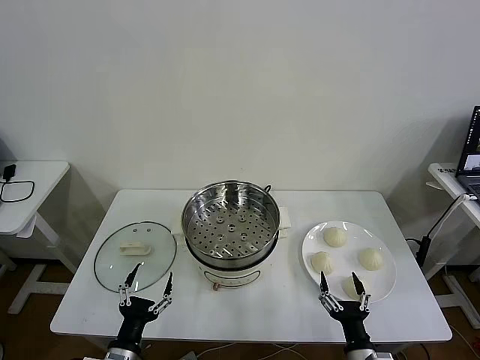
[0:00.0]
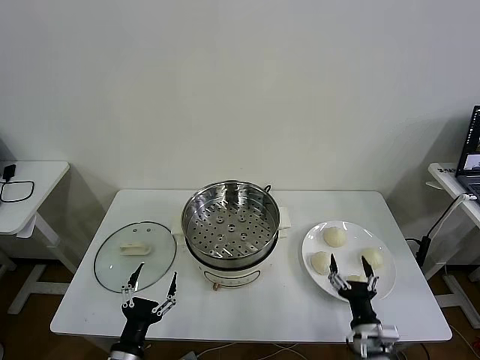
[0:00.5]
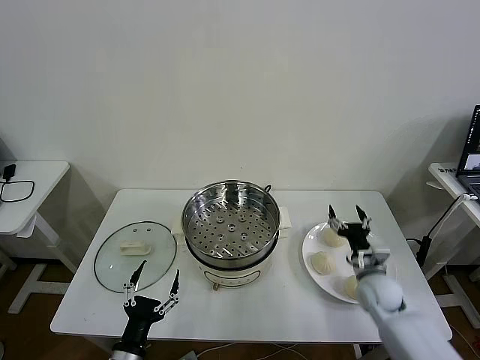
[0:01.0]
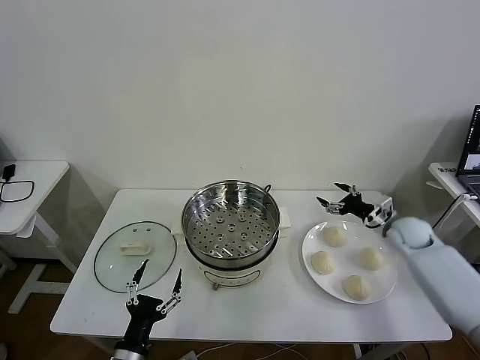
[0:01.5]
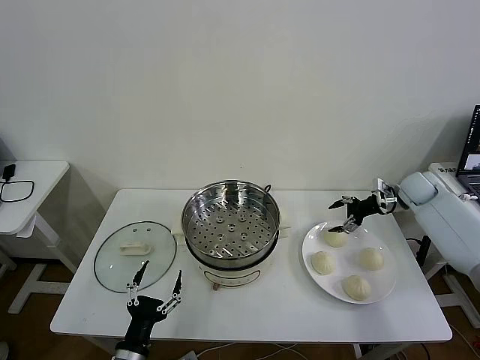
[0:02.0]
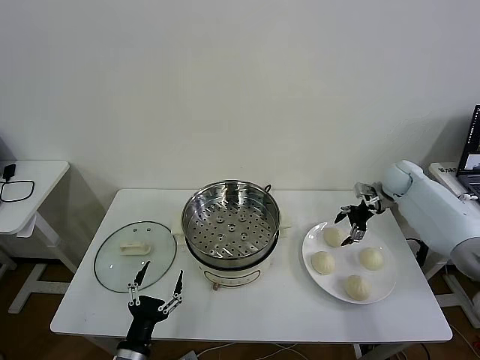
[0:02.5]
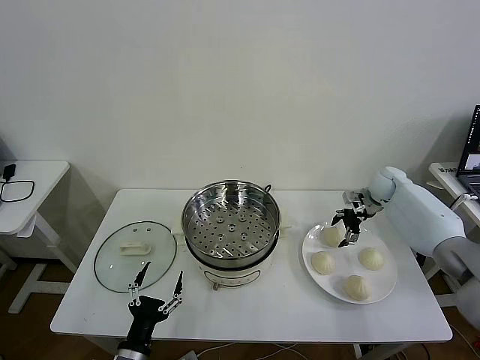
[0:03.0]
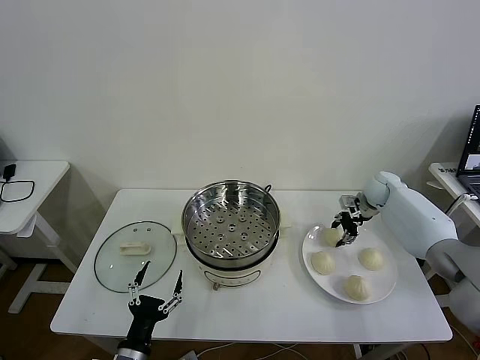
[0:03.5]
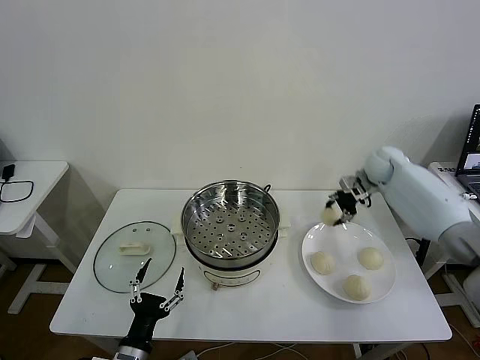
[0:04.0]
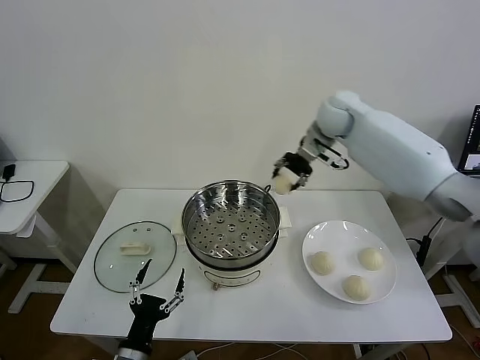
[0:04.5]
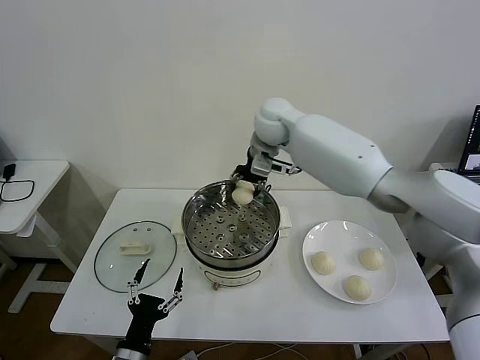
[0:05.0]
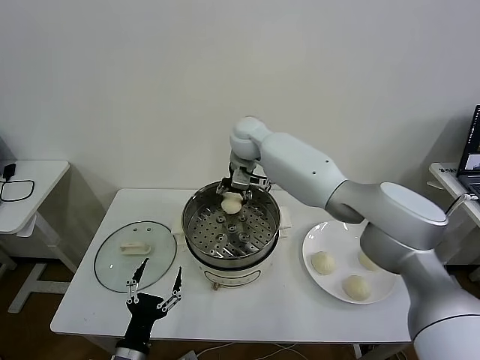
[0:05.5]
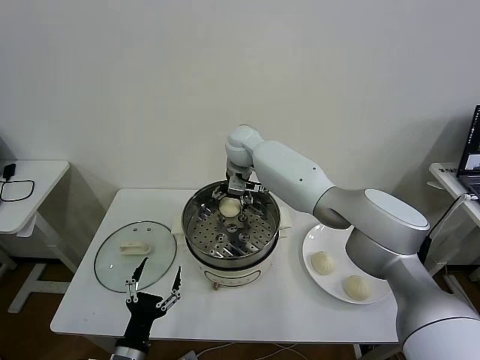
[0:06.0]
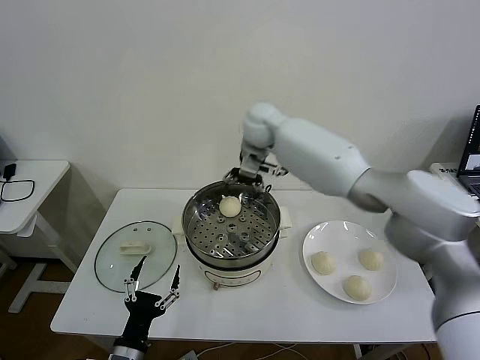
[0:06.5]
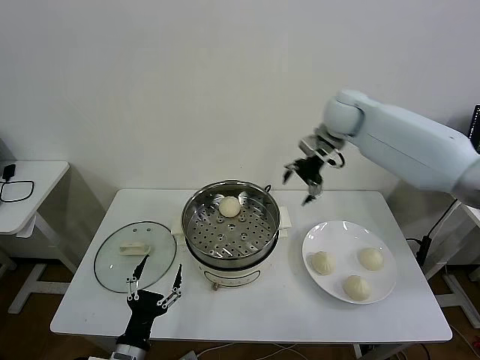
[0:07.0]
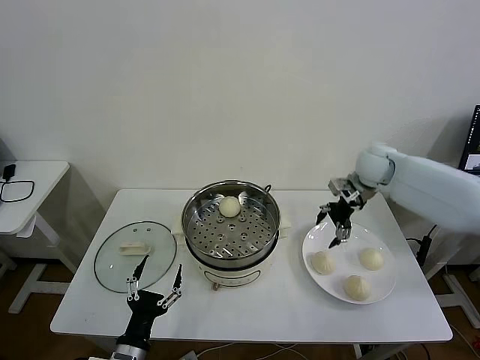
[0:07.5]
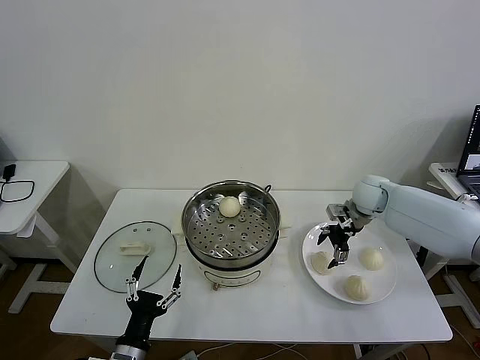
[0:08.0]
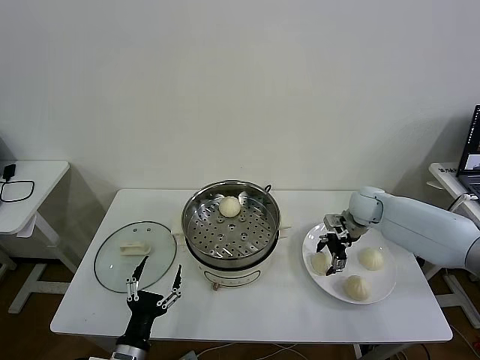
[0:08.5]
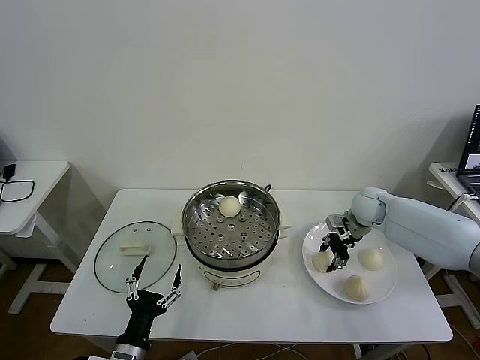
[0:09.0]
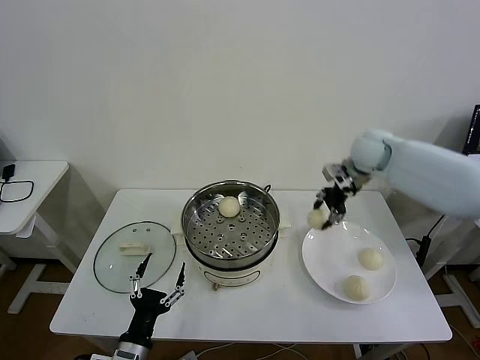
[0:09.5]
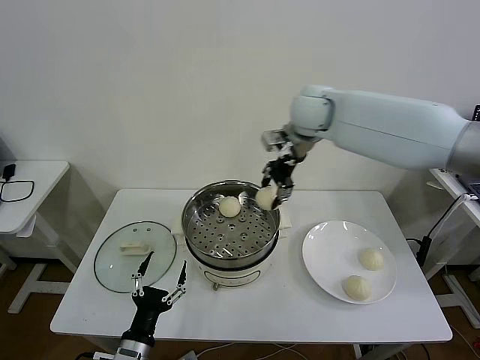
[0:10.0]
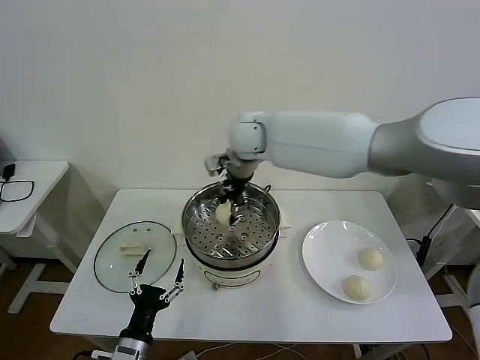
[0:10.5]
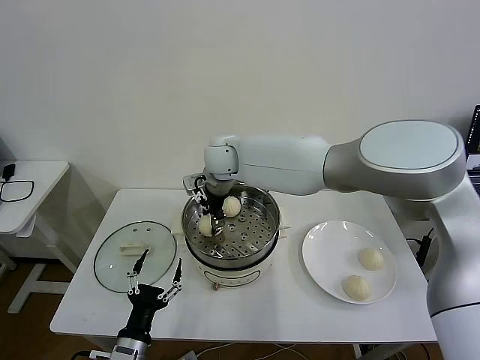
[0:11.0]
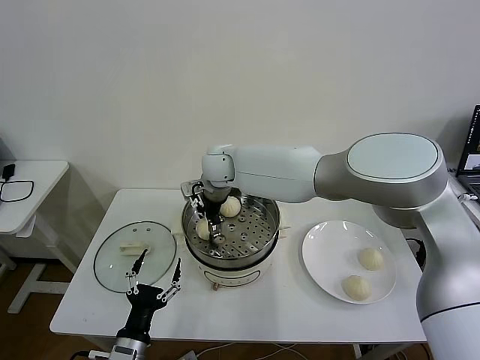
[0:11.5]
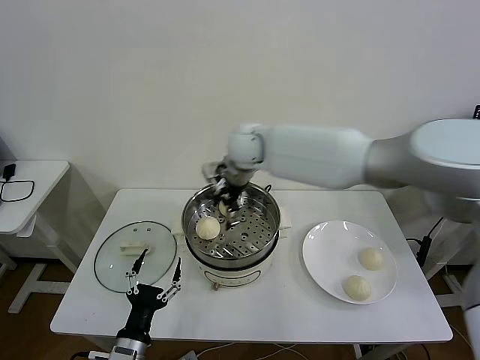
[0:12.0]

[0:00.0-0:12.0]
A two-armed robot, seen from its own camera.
Task of the whole recording: take steamed baozi put them in steamer then cover it.
Step, 0:00.0 to 0:03.5: Grasp the baozi in the plate with right gripper.
Step, 0:04.0 to 0:06.0: Place the baozi on the steamer with right gripper.
Step, 0:07.0 to 0:08.5: Grasp the baozi in the plate with right gripper.
Step, 0:09.0 to 0:11.5: Place the baozi on the steamer with right gripper.
0:02.0 to 0:04.0: The right gripper heads to the left and upward, covering about 10 cm, and closes up.
0:04.0 to 0:06.0: The right gripper moves to the left, approximately 35 cm, and opens its fingers.
0:06.0 to 0:08.0: The right gripper moves to the right, roughly 30 cm.
0:08.0 to 0:10.0: The right gripper shifts about 30 cm upward and to the left, and closes its fingers.
0:10.0 to 0:12.0: The right gripper heads to the left and downward, covering approximately 10 cm, and opens.

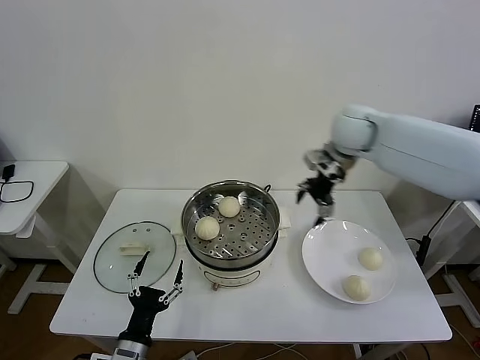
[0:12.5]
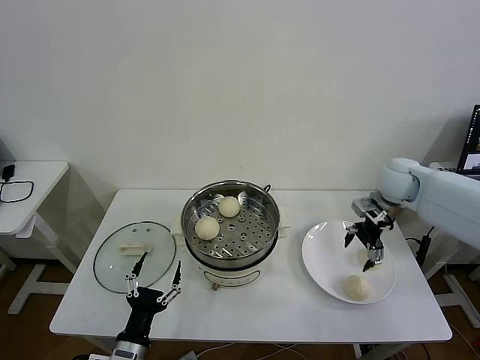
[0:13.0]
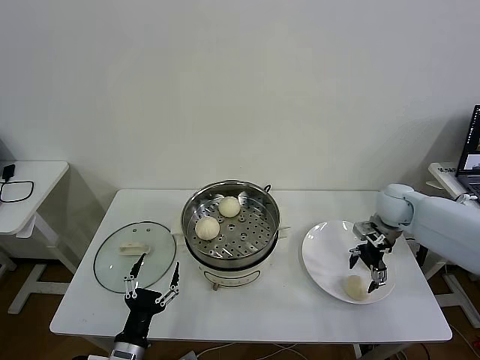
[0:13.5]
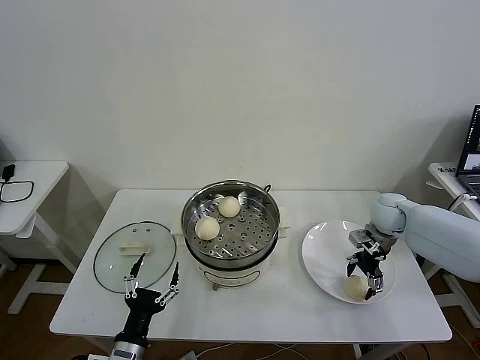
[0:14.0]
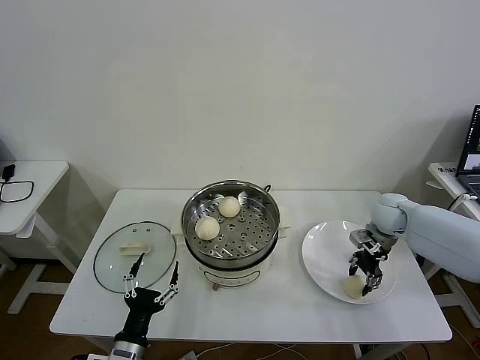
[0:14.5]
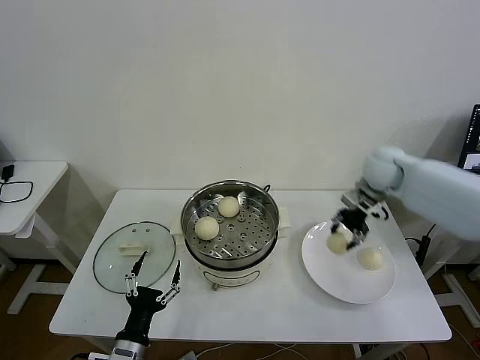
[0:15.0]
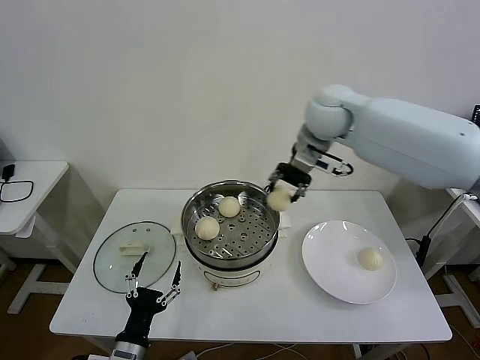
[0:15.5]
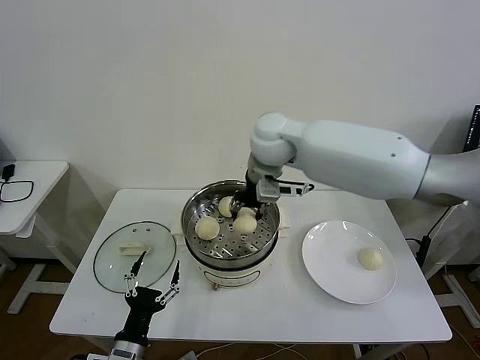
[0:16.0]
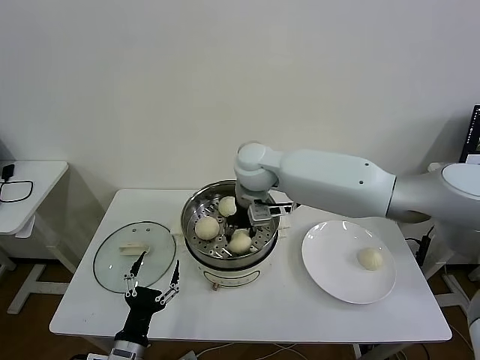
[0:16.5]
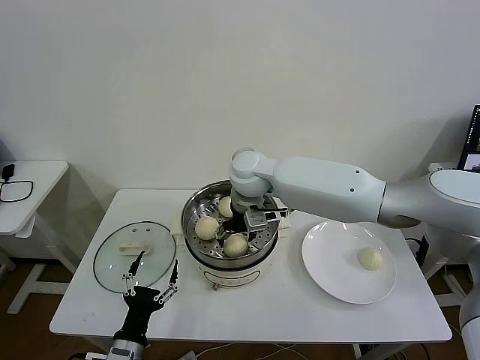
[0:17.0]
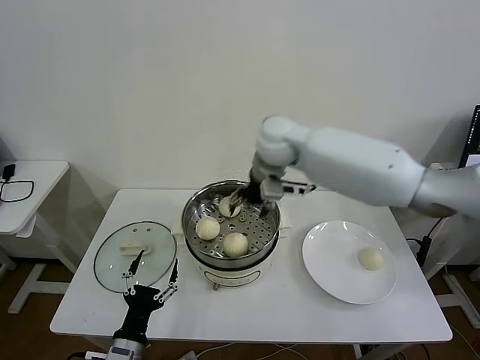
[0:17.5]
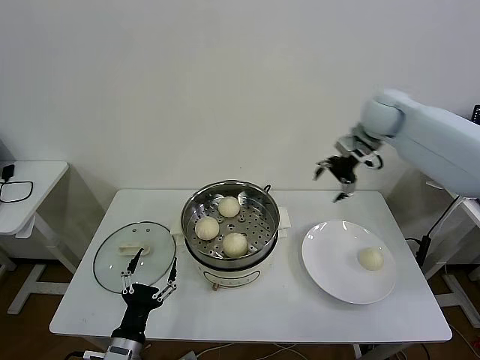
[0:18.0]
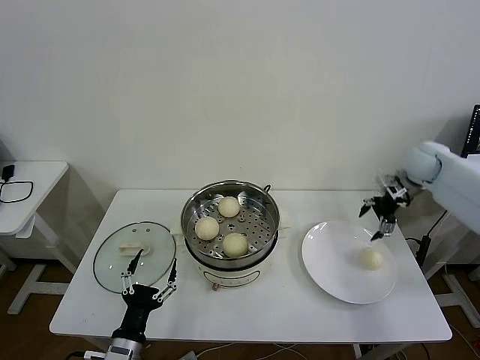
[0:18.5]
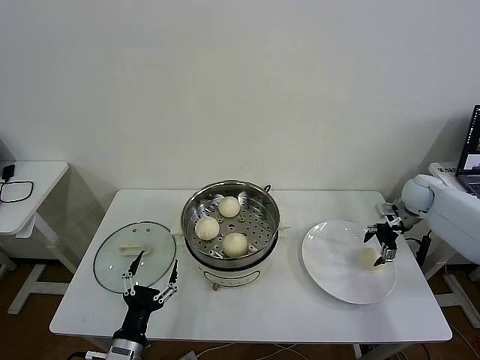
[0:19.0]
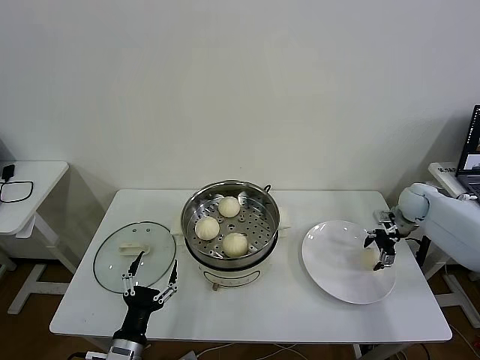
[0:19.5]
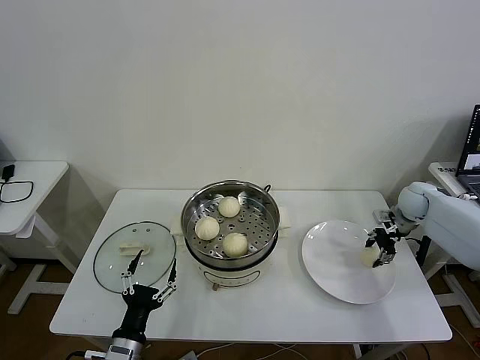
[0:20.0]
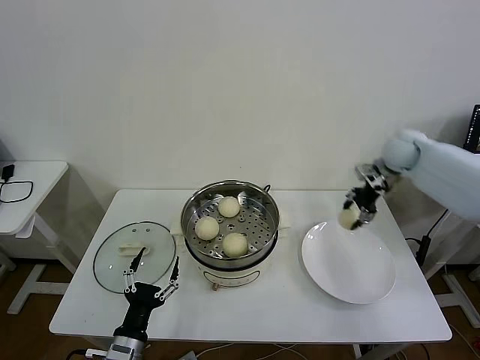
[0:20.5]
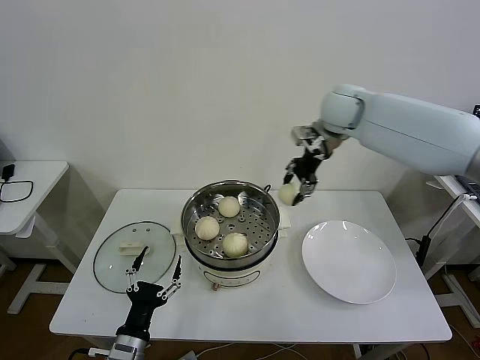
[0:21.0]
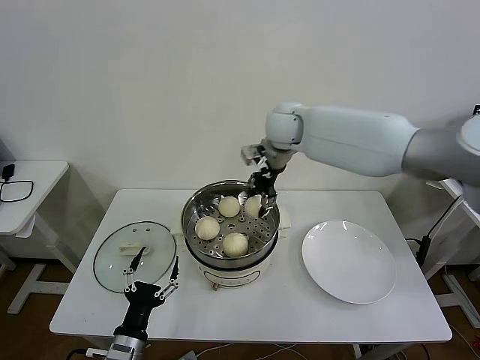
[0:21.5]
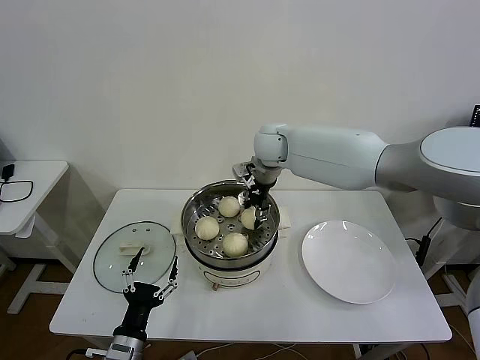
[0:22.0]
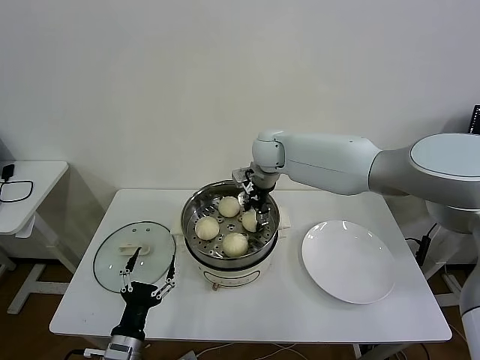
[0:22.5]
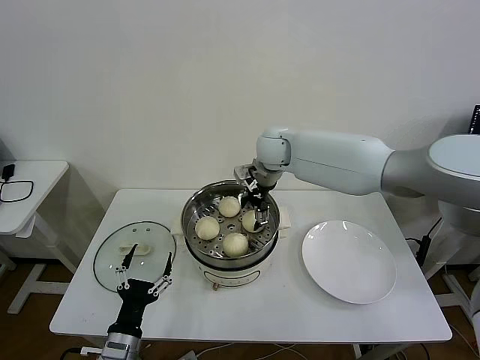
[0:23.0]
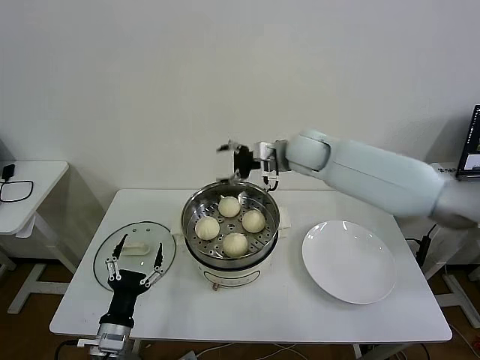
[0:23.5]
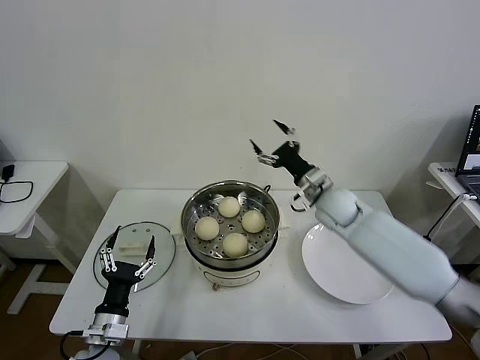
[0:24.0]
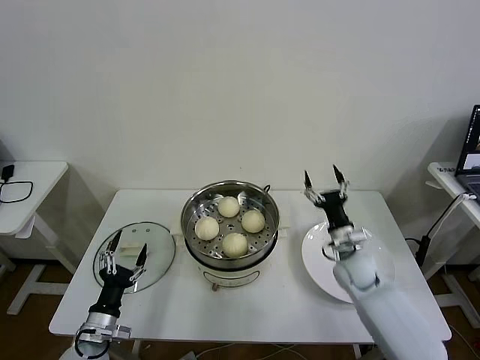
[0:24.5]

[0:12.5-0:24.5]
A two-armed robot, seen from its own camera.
Task of the whole recording: take steamed baozi put them in steamer then cover it.
Step, 0:12.5 to 0:14.0: Grasp the baozi in the plate with right gripper.
Step, 0:14.5 to 0:17.0: Place the baozi on the steamer with right gripper.
Step, 0:18.0 to 0:19.5: Grasp the baozi in the plate with right gripper.
Step, 0:20.5 to 0:23.0: Place the baozi on the steamer with right gripper.
0:12.5 to 0:14.5: The right gripper travels downward and to the right by some 25 cm, and closes its fingers.
0:14.5 to 0:16.5: The right gripper heads to the left and upward, covering about 40 cm.
0:16.5 to 0:18.5: The right gripper is displaced to the right by some 40 cm, and opens its fingers.
0:18.5 to 0:20.5: The right gripper travels to the left by roughly 5 cm, reaches roughly 10 cm downward, then returns, and closes up.
0:20.5 to 0:22.5: The right gripper heads to the left, covering roughly 30 cm.
0:22.5 to 0:24.5: The left gripper goes roughly 10 cm to the left and forward, while the right gripper travels downward, to the right and backward by roughly 35 cm, and opens up.

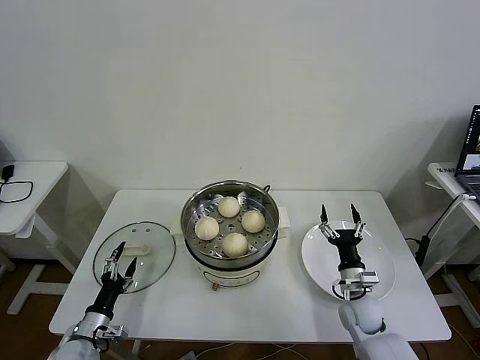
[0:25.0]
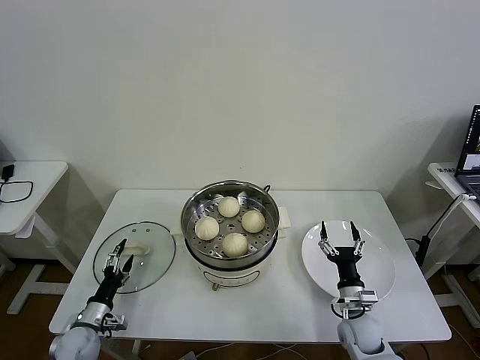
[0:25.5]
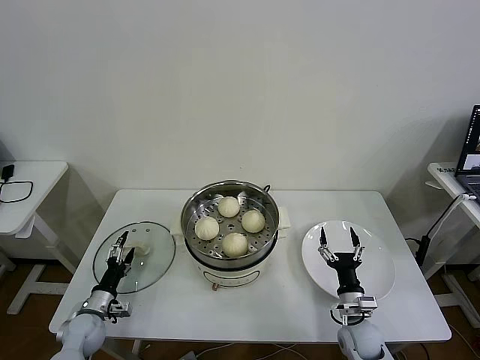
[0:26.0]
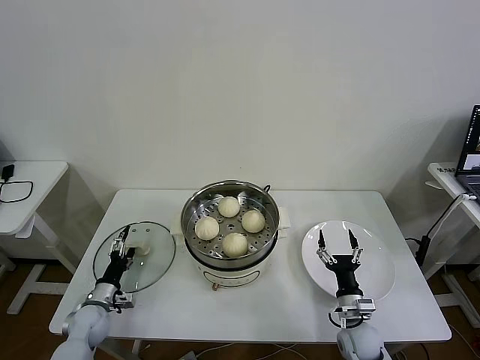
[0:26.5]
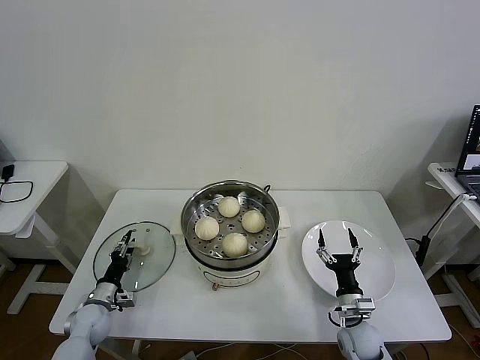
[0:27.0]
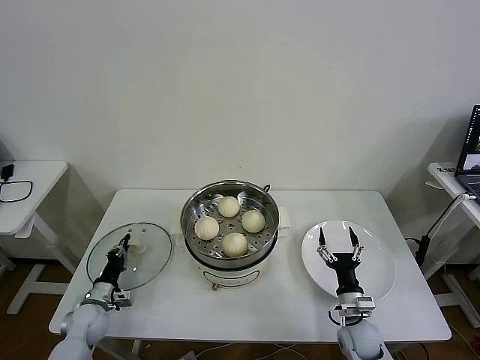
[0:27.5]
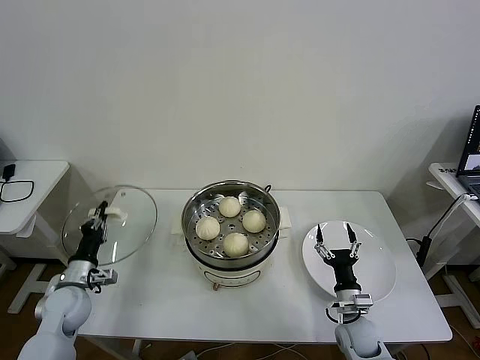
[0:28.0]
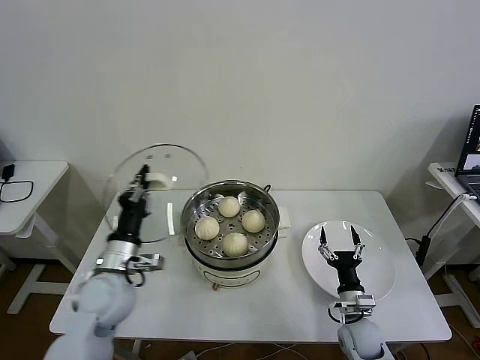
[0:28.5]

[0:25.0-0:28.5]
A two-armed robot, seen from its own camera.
Task of the whole recording: take steamed baozi put them in steamer then cover it.
Step, 0:25.0 to 0:27.5: Grasp the pot lid with left gripper.
0:25.0 to 0:27.0: The right gripper moves backward, about 5 cm; the left gripper goes approximately 10 cm forward, and closes its fingers.
0:27.0 to 0:28.5: The left gripper travels upward and to the right by some 25 cm, and closes its fingers.
